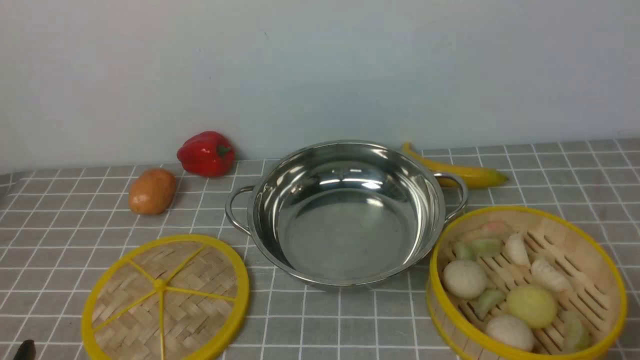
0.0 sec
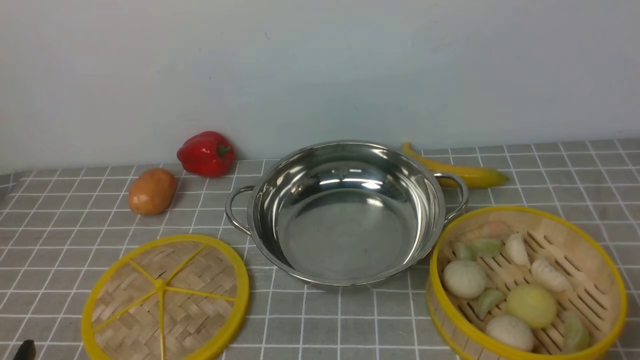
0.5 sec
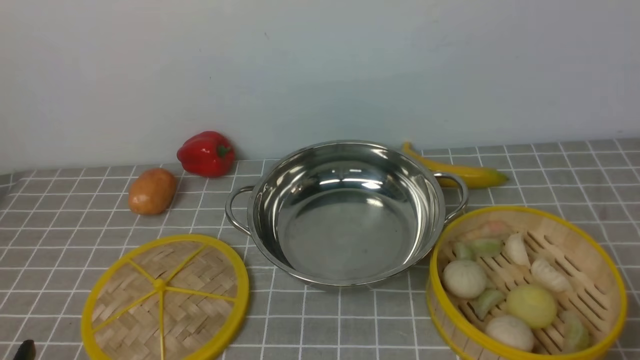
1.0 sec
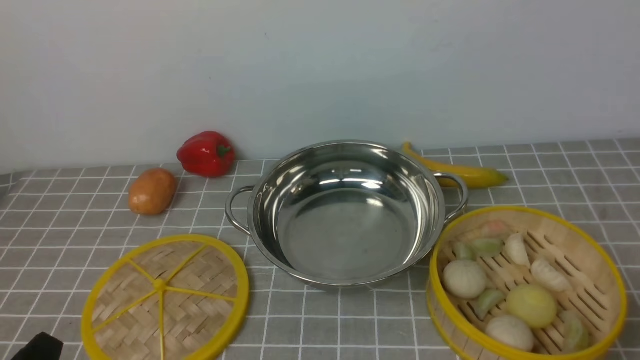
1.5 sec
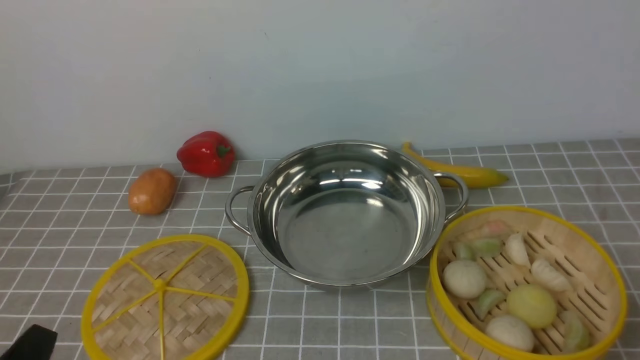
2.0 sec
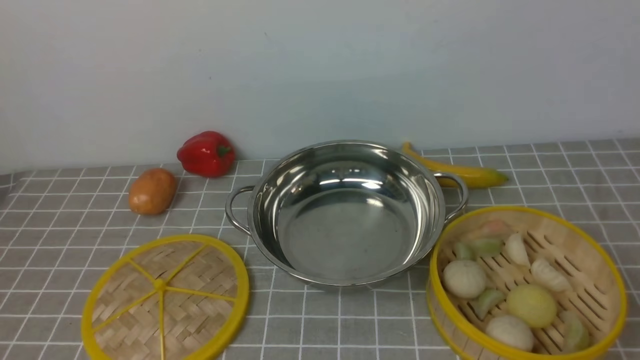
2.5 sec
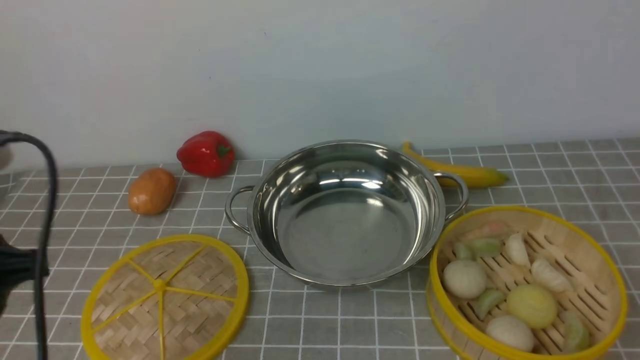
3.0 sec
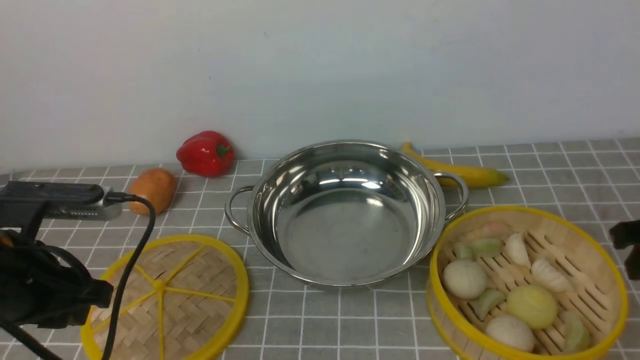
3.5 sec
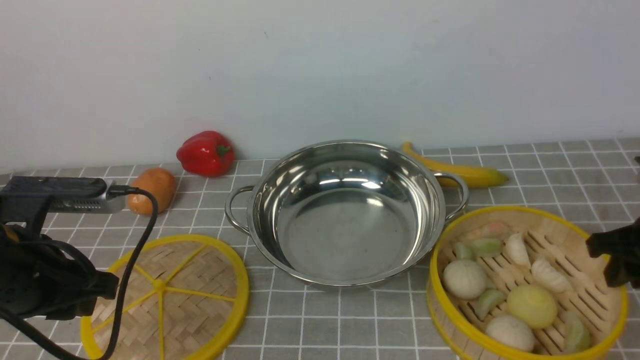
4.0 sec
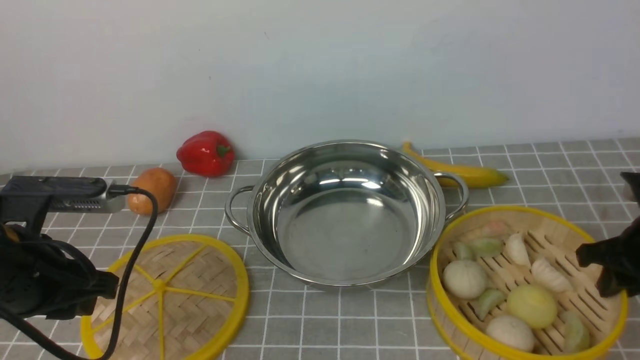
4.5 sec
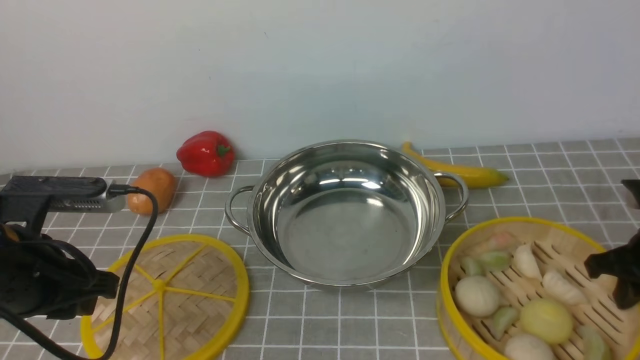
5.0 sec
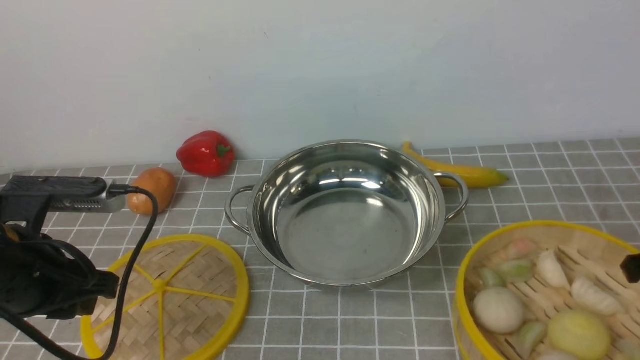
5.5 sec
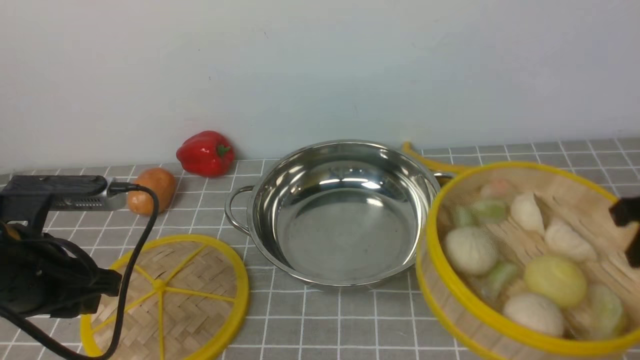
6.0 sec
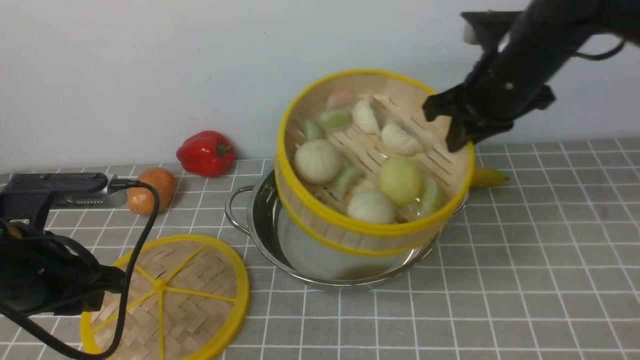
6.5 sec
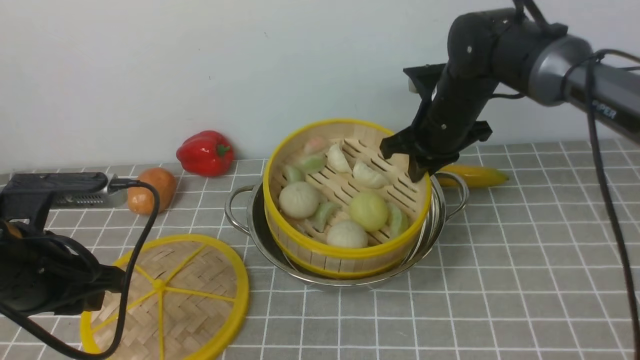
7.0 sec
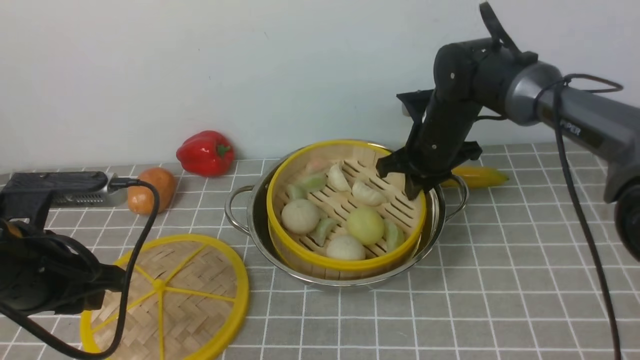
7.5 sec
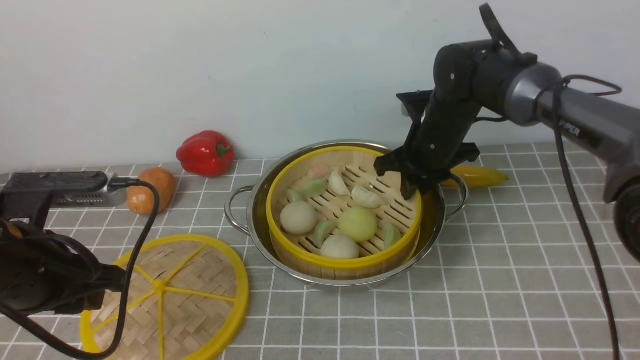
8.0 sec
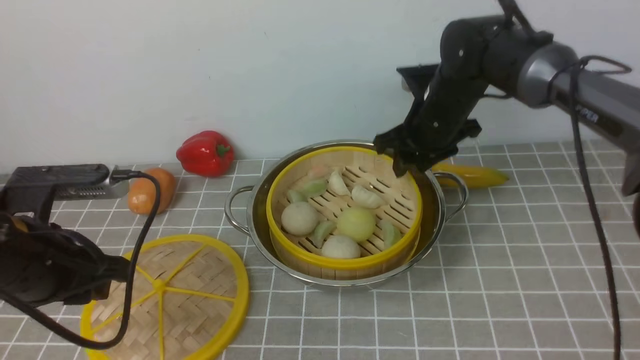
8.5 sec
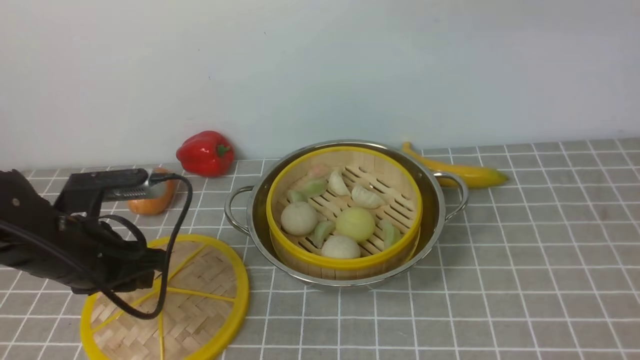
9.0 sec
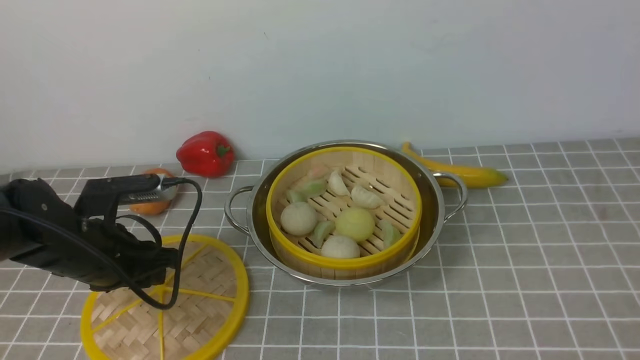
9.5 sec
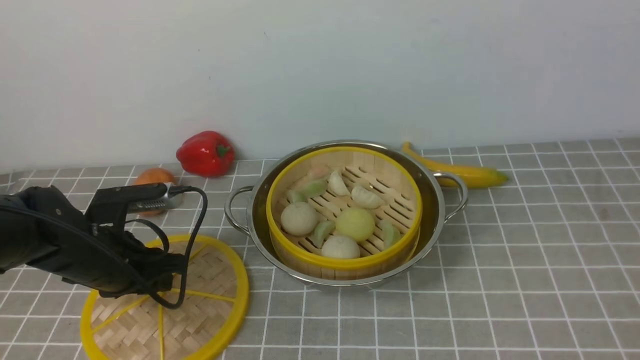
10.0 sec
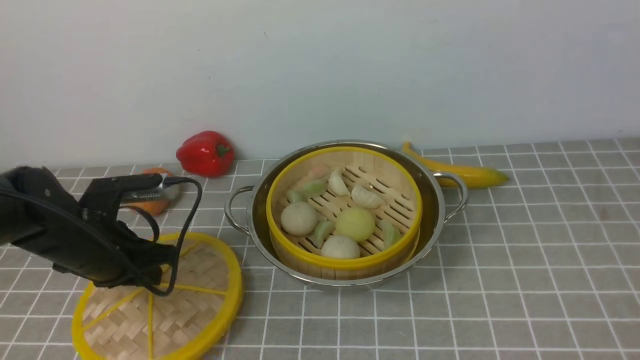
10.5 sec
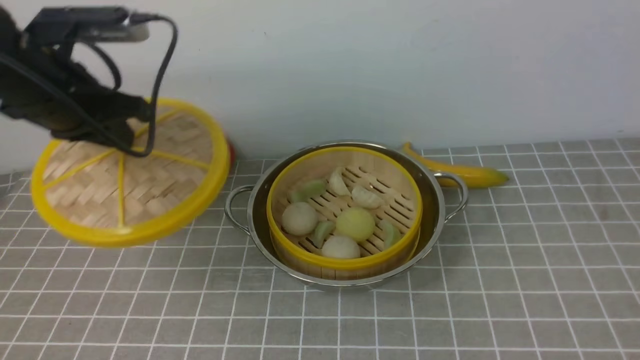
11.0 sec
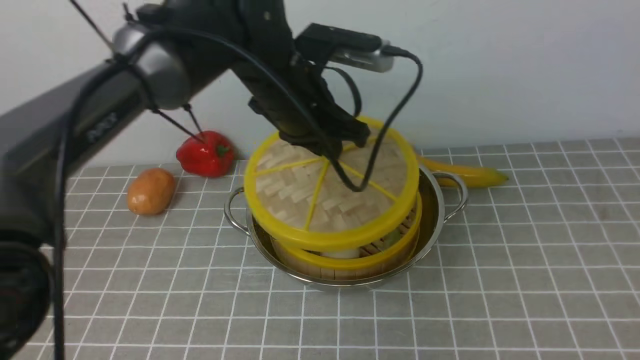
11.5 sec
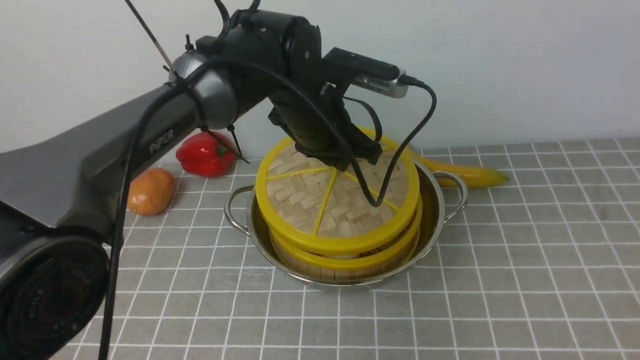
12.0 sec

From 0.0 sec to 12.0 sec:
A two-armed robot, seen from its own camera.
Task of the whole recording: place the steamer in the pot on the grey tablecloth, and put the lid on the steamer.
Step, from 0.0 sec to 5.0 sec: use the right arm to lift the steamer closest to it.
Step, from 5.5 sec to 8.0 sec: use the right arm to put the steamer into the iron steamer pot in the middle.
Step, from 9.0 sec to 10.5 sec: use the left arm to lift the lid of the steamer.
From 2.0 sec to 4.0 sec: The grippers both shift forward by some 20 cm.
From 4.0 sec to 6.0 sec: The right gripper is displaced upward by roughly 10 cm, and closes up.
From 6.0 sec to 8.0 sec: The right gripper is displaced to the left, forward and downward by about 25 cm, and opens.
From 8.0 sec to 10.0 sec: The left gripper shifts about 10 cm downward and forward, while the right gripper travels upward and backward by about 60 cm, and opens.
From 10.0 sec to 12.0 sec: The left gripper goes approximately 25 cm to the right, forward and upward.

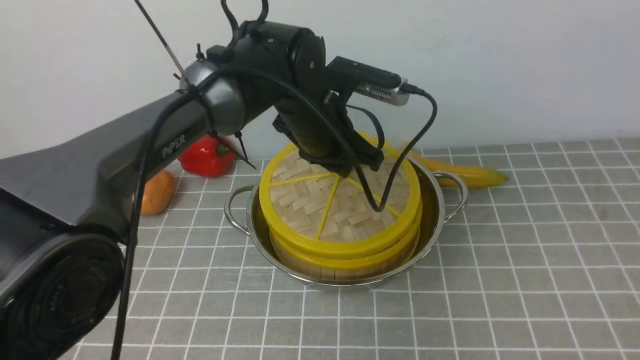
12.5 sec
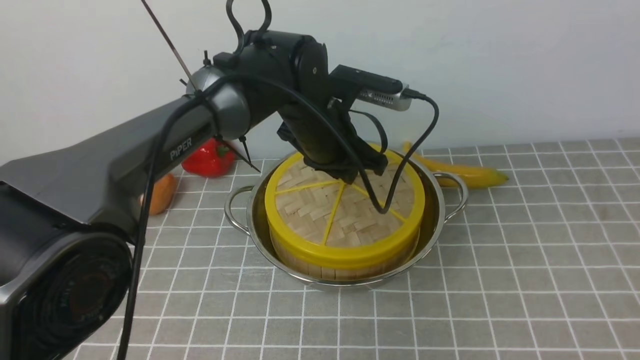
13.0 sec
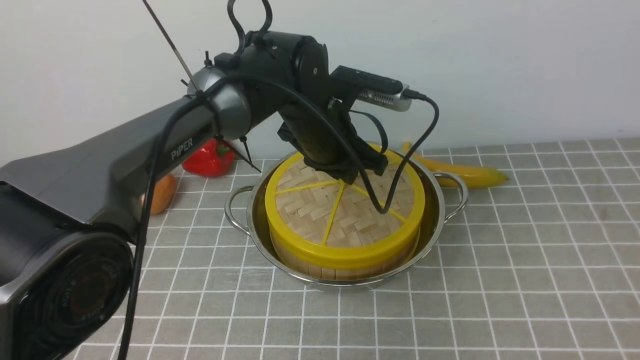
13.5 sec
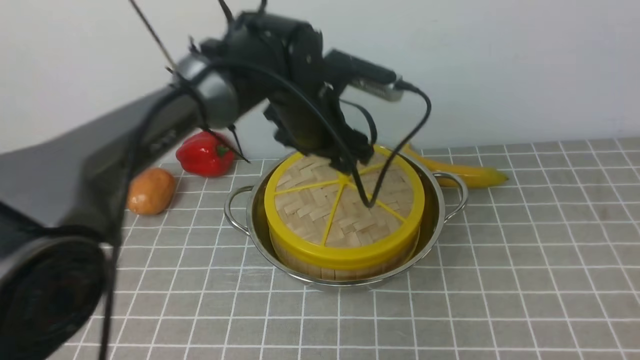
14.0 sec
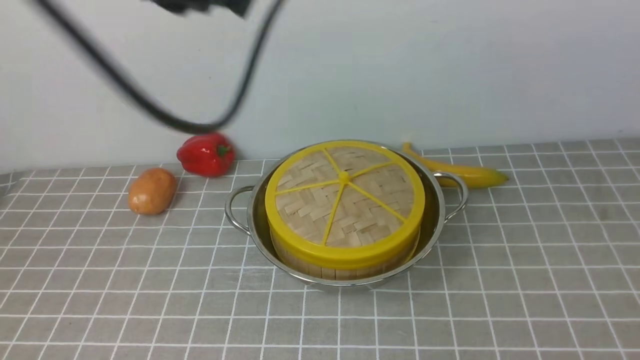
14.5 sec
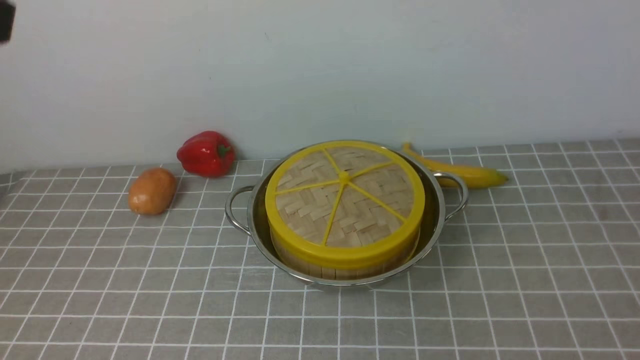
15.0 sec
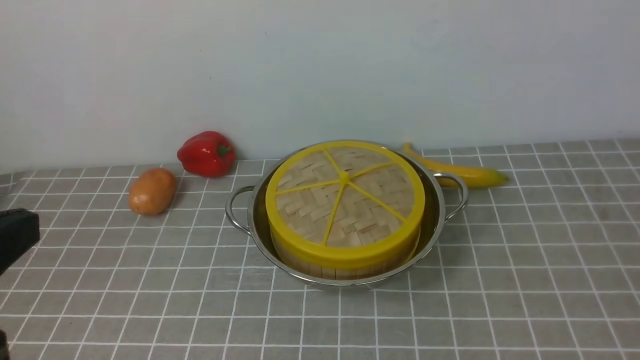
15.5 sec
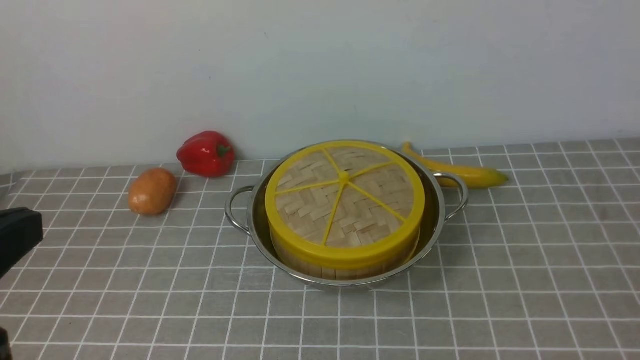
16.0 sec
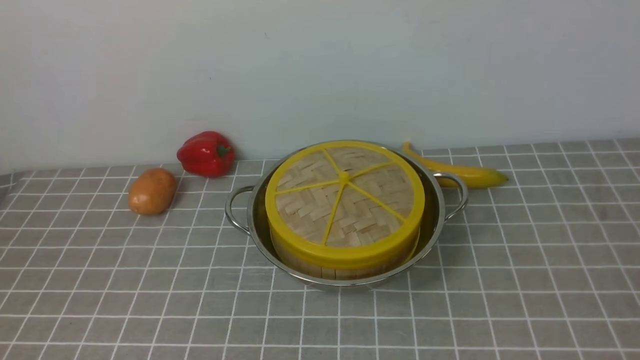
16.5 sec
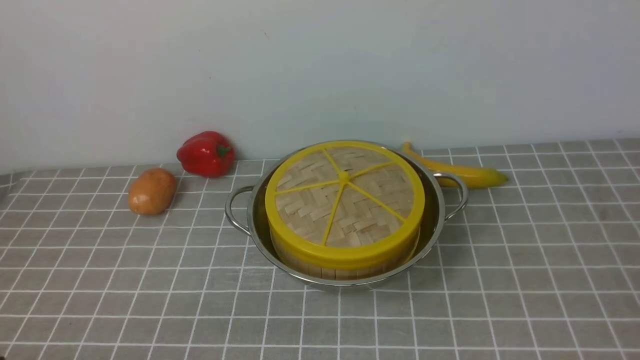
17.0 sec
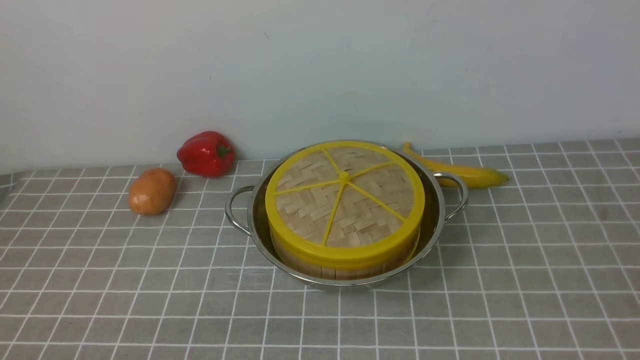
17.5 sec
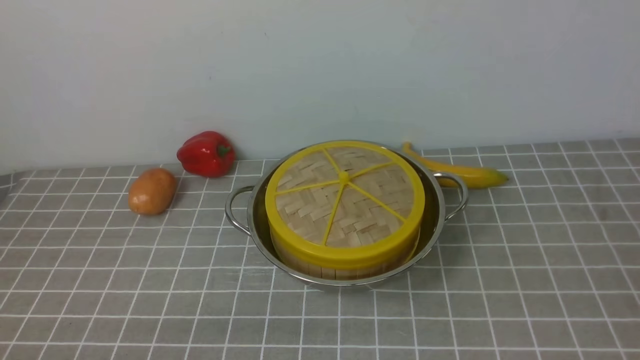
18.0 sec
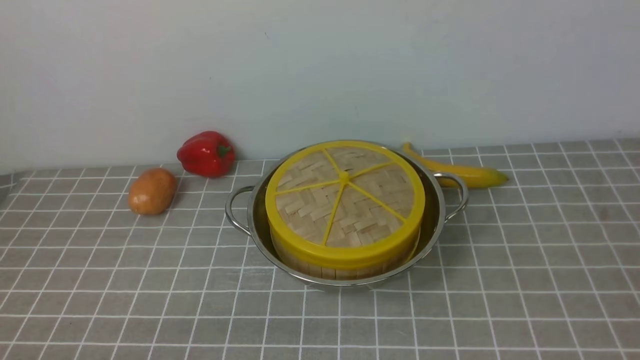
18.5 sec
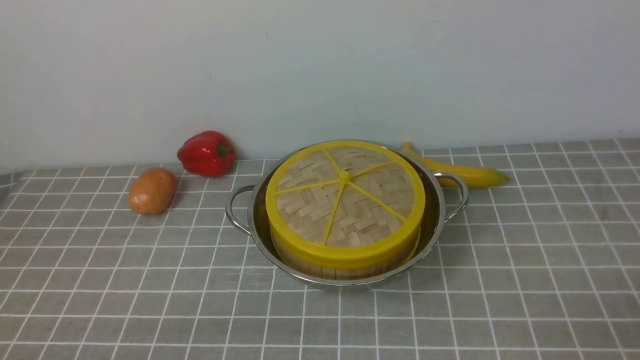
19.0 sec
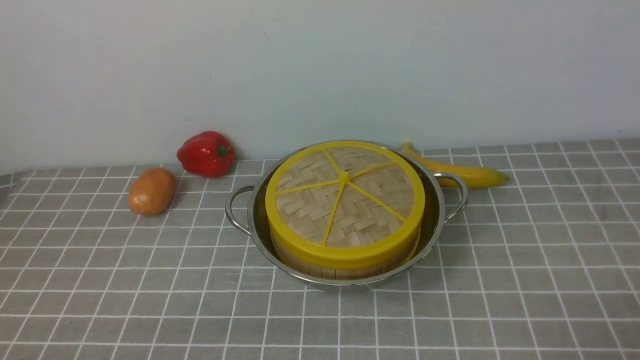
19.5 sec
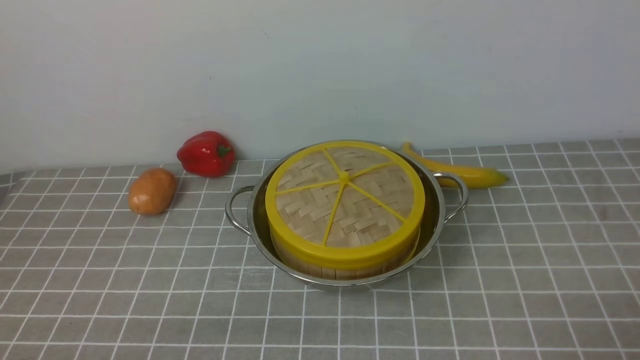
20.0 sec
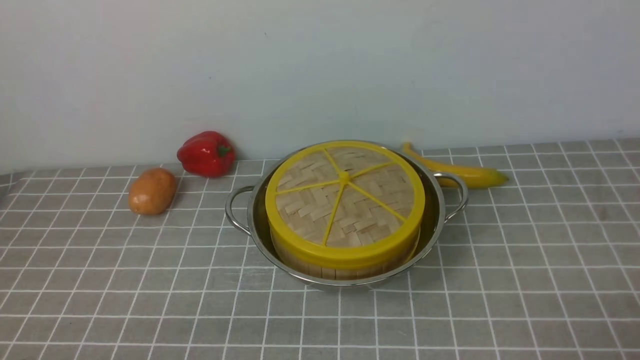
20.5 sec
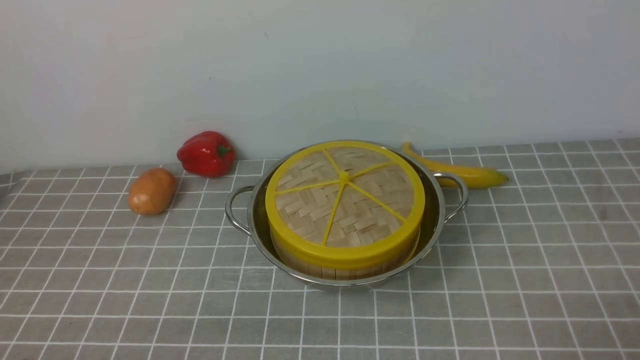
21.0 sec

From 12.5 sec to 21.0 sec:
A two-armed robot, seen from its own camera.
Task of the whole recording: place the steamer in the pot on the grey tablecloth, and put the lid on the steamer.
From 12.5 sec to 14.5 sec: The right gripper ends up some 5 cm from where it was. Meanwhile the left gripper moves upward, backward and to the left, approximately 30 cm, and opens, then closes again.
From 14.5 sec to 16.5 sec: The left gripper travels backward, downward and to the left by roughly 30 cm. The right gripper heads downward, covering roughly 25 cm, and closes up.
